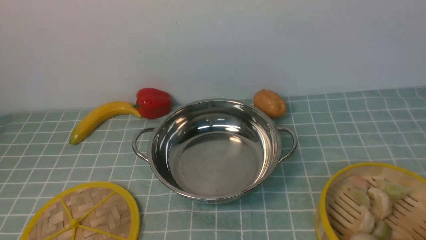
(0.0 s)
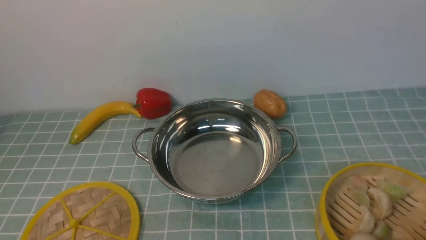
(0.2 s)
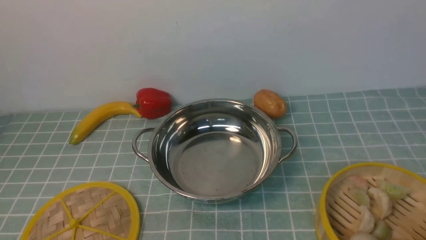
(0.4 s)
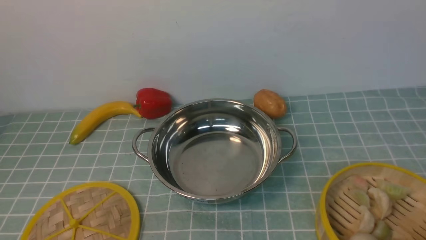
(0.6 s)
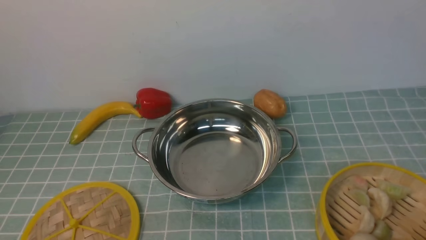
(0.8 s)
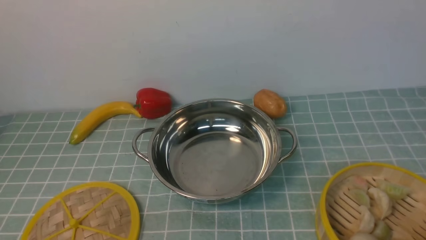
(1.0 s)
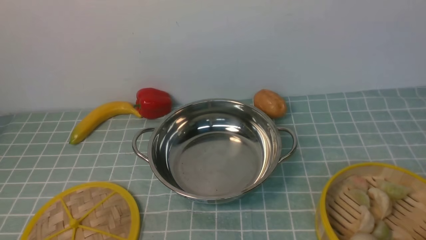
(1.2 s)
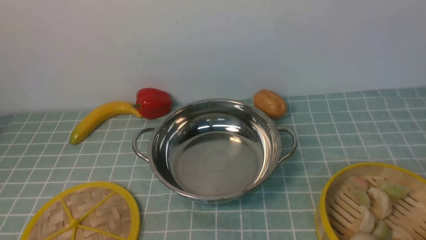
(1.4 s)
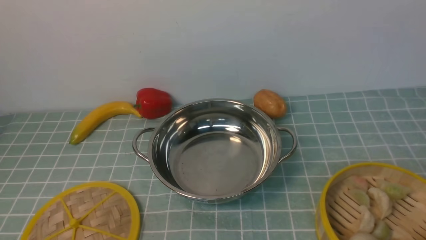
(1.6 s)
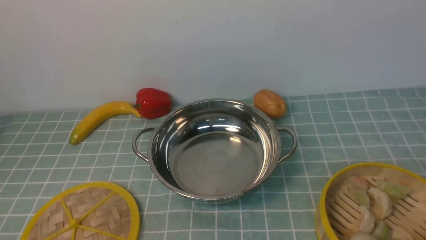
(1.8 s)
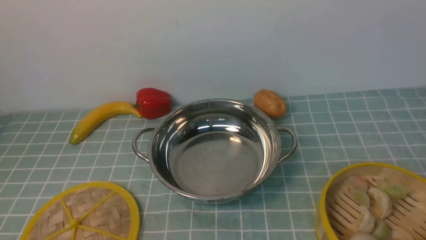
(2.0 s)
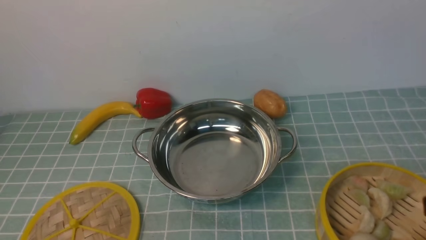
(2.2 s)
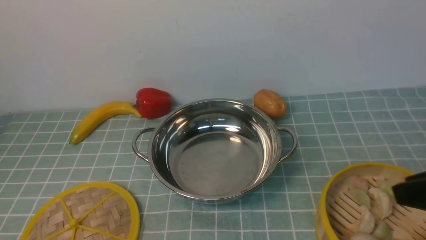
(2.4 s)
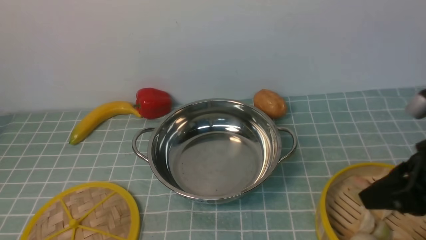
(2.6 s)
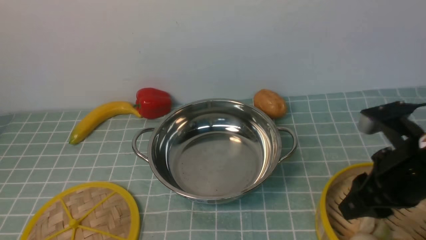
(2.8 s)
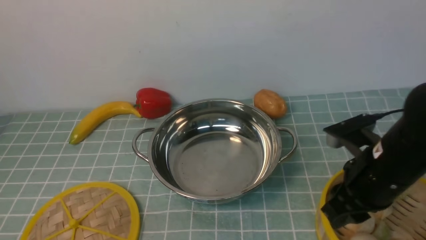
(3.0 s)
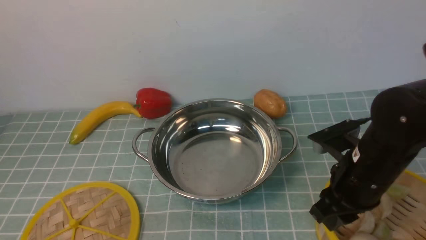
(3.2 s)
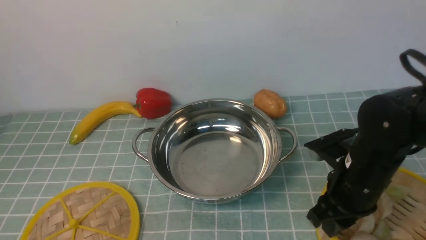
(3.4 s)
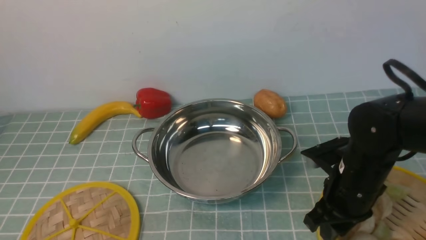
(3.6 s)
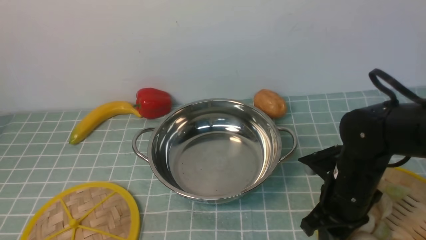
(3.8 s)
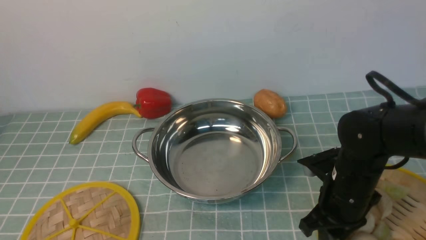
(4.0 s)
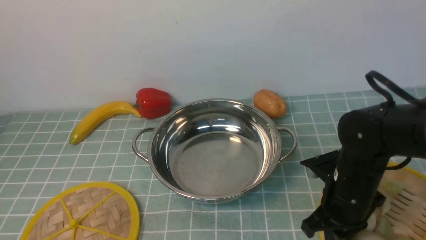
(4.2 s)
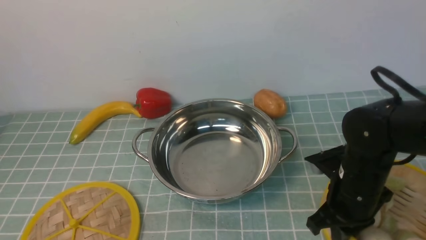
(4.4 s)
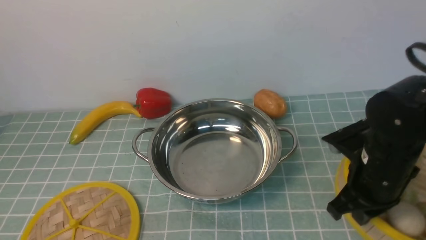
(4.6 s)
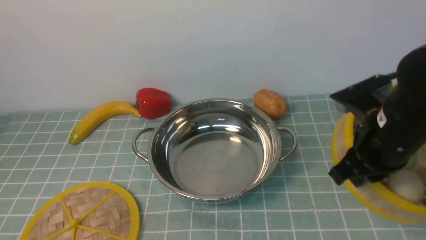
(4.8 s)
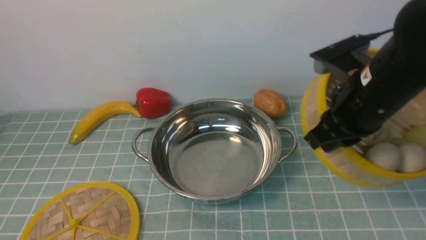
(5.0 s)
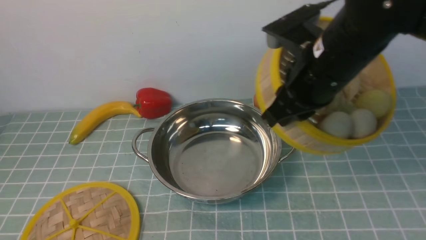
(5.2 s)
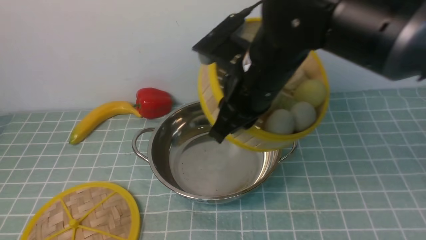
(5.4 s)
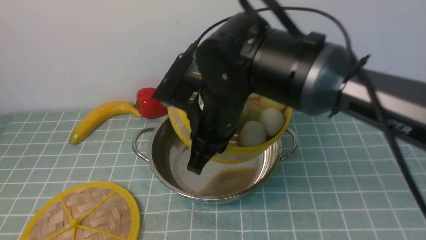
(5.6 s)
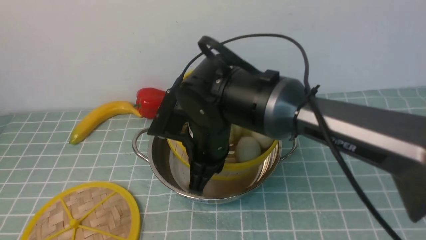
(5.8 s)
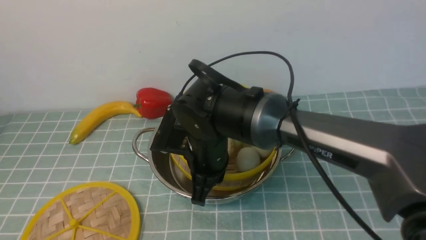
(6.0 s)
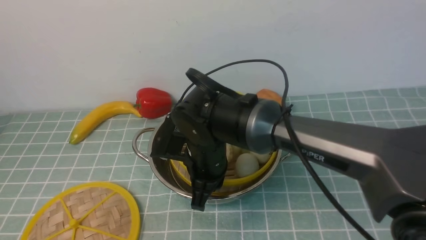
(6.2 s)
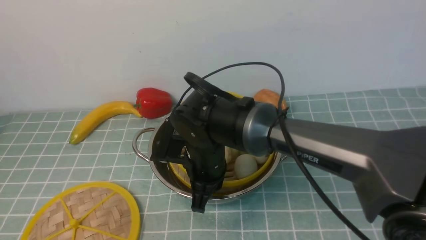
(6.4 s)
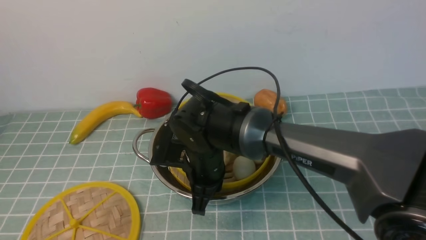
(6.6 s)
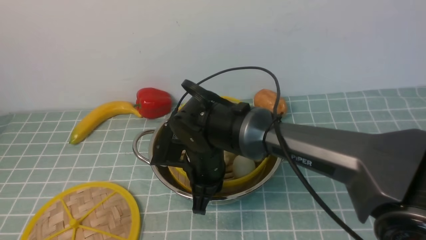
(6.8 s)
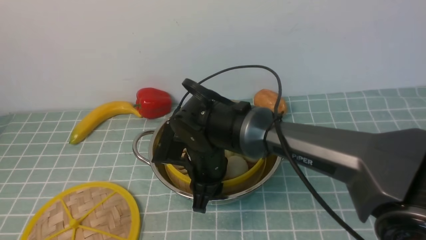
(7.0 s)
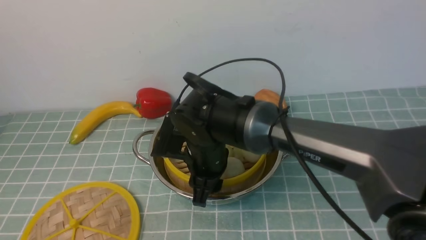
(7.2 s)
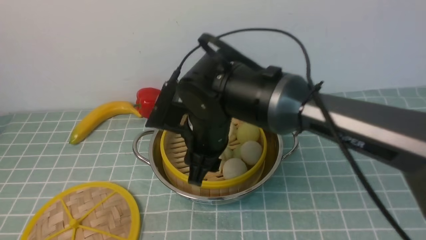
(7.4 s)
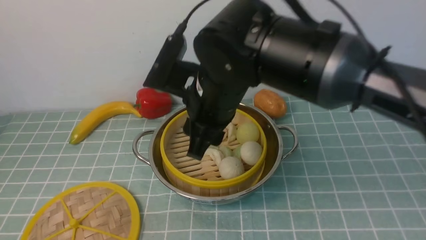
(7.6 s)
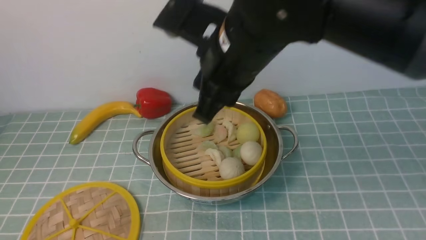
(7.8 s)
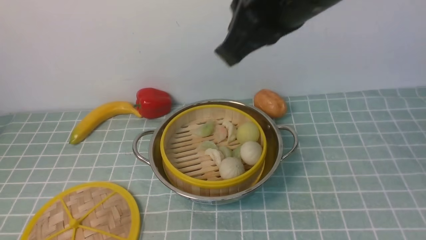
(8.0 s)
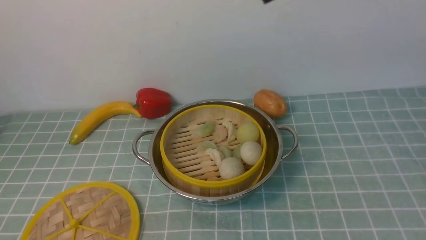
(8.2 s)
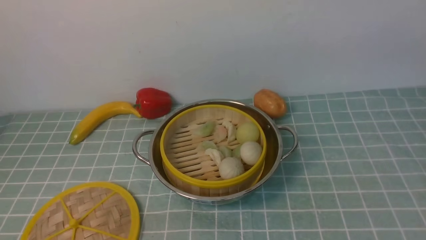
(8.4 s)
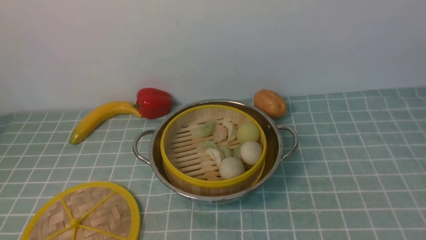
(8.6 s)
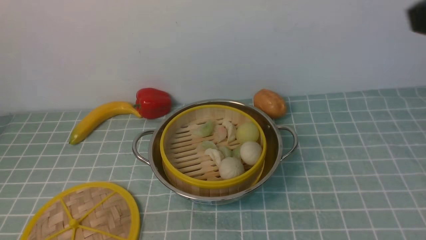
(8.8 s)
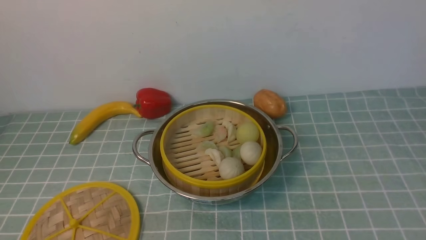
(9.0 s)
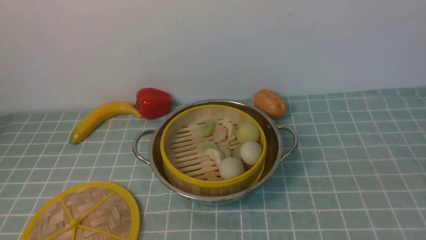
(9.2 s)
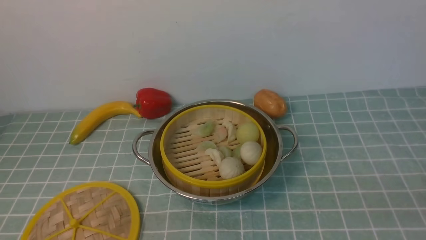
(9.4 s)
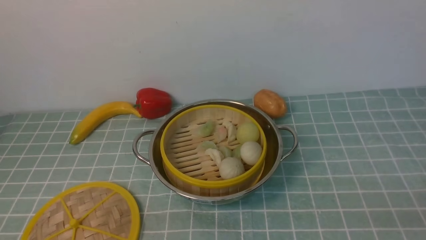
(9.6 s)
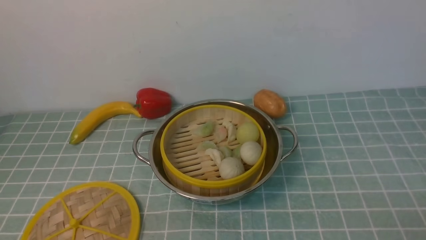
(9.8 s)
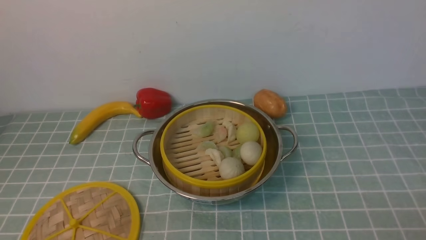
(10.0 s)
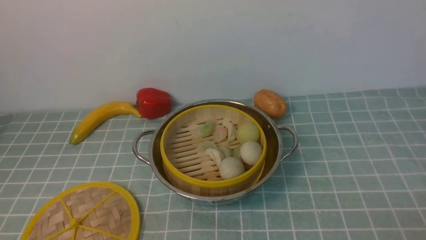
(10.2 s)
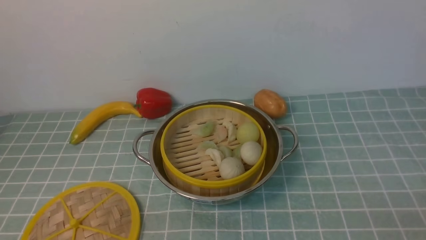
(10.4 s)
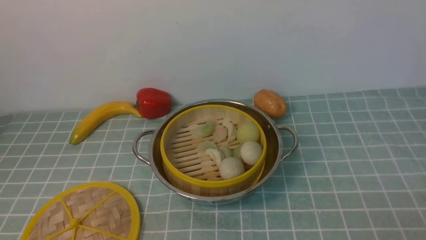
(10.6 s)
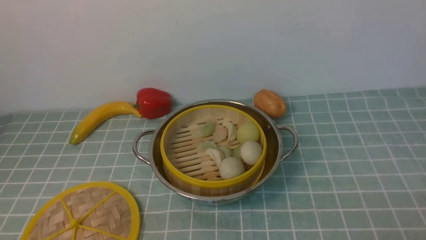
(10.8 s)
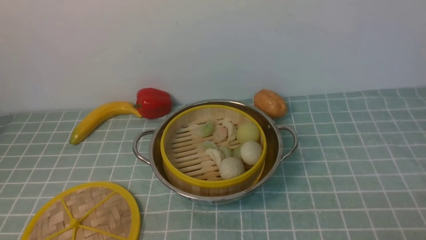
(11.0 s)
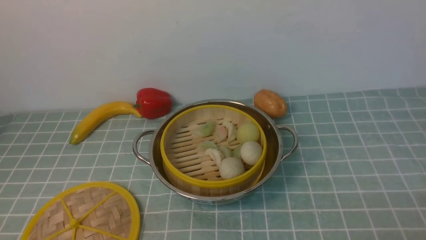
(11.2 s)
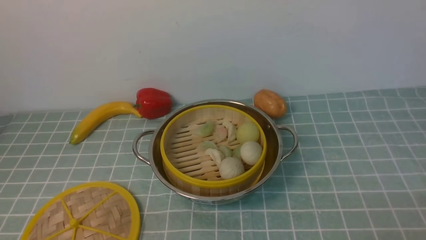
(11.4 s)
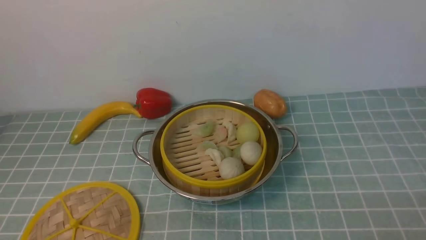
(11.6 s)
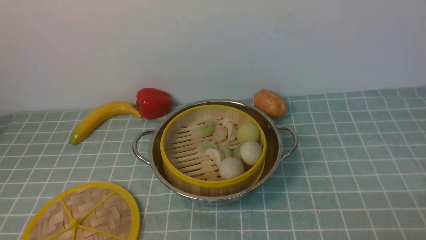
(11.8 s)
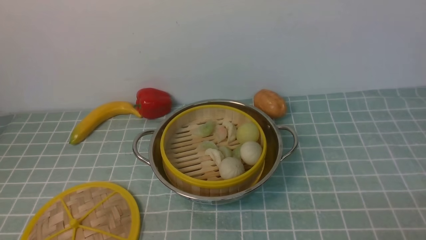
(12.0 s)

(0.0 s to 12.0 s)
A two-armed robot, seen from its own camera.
Task of the whole recording: place the steamer in the pot on the blue tablecloth, and put the lid on the steamer.
Step, 0.0 s - 4.8 s: use the right arm to lift the steamer closest to it.
Step, 5.0 s - 7.6 s: use the right arm to put the steamer into the iron steamer pot in the middle.
1.6 s - 3.0 s: The right gripper shifts roughly 20 cm forward and to the left.
3.0 s - 4.4 s: The right gripper shifts about 10 cm downward, and closes its fingers.
4.4 s - 6.0 s: The right gripper is displaced to the left by roughly 20 cm.
6.0 s - 7.6 s: The right gripper travels upward by approximately 5 cm, and opens.
7.6 s - 9.0 s: The right gripper travels to the right, backward and upward by approximately 35 cm, and closes its fingers.

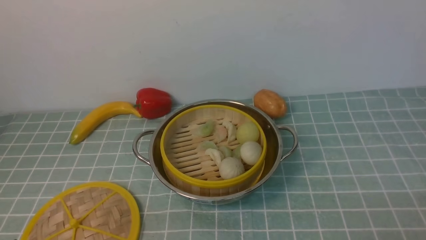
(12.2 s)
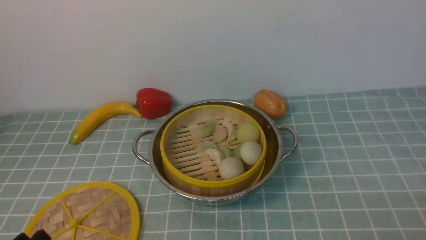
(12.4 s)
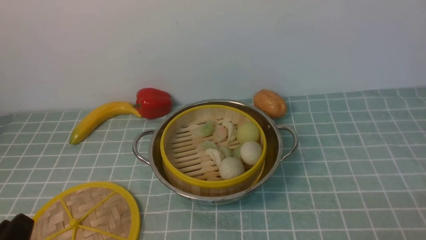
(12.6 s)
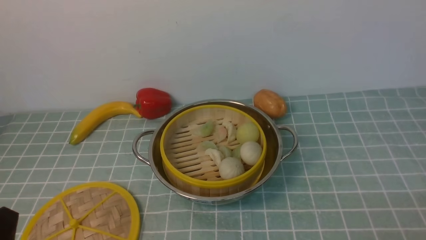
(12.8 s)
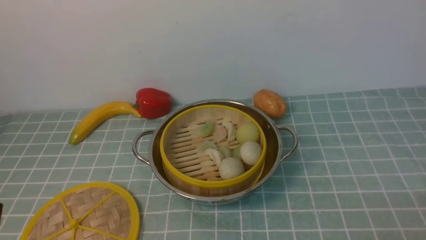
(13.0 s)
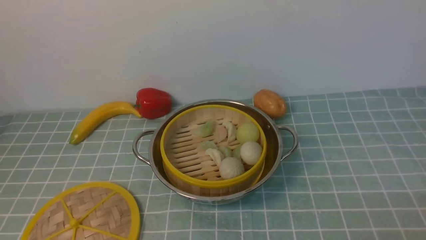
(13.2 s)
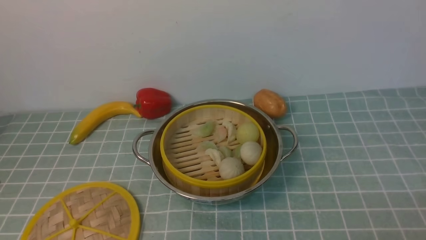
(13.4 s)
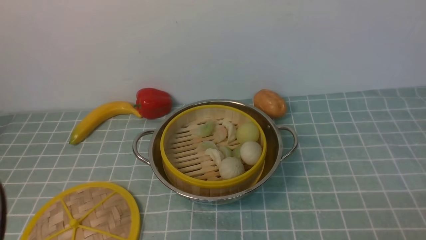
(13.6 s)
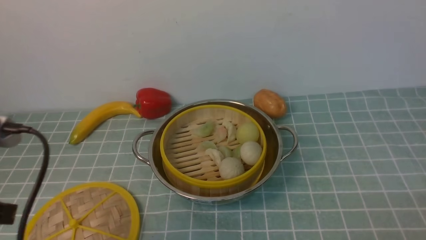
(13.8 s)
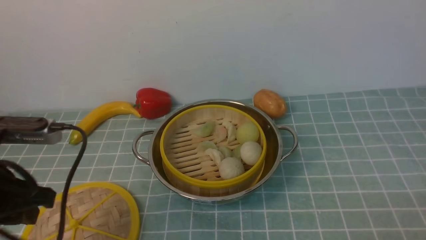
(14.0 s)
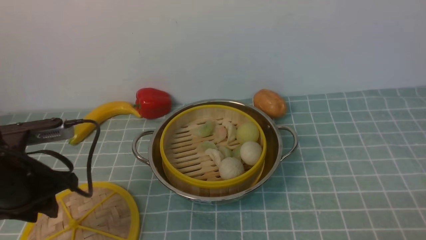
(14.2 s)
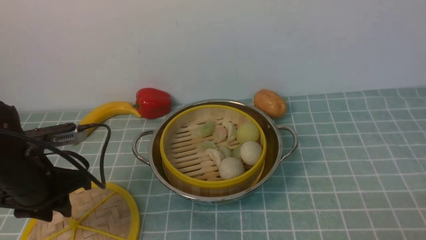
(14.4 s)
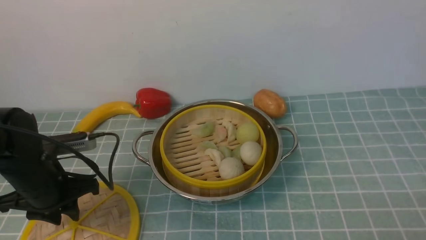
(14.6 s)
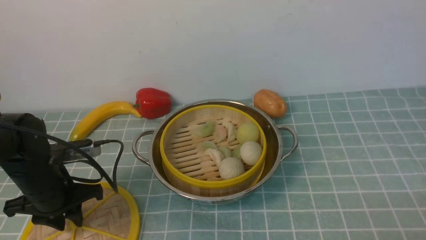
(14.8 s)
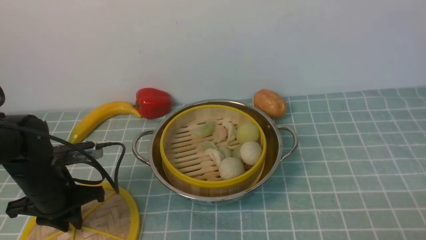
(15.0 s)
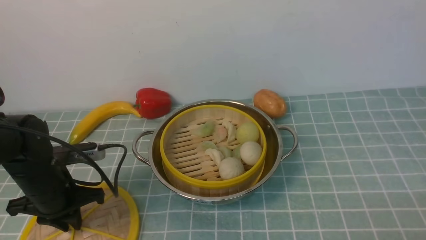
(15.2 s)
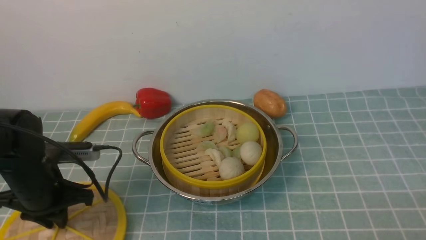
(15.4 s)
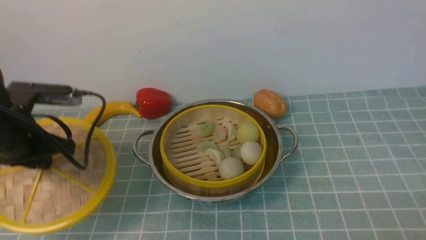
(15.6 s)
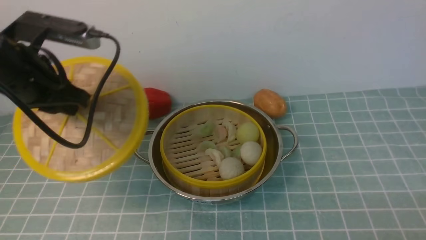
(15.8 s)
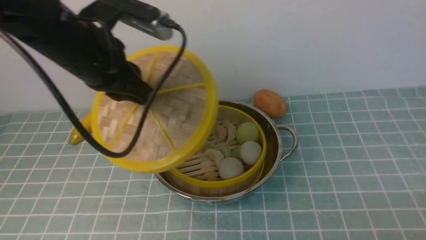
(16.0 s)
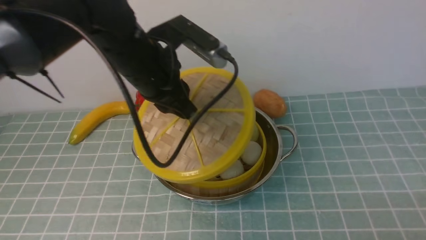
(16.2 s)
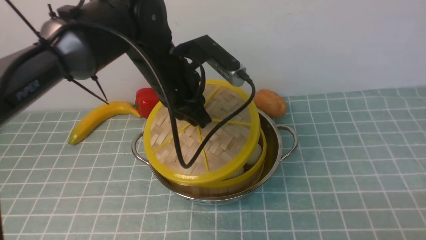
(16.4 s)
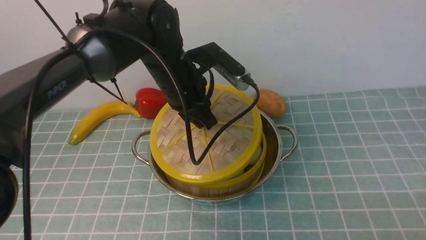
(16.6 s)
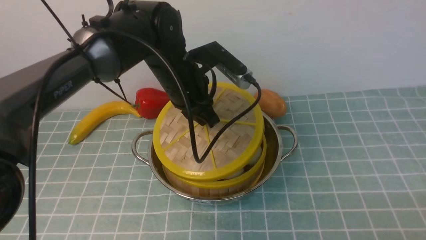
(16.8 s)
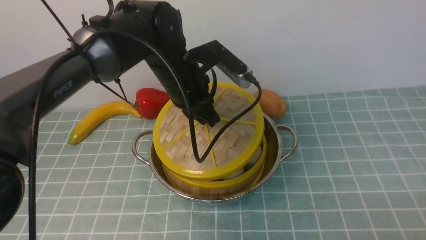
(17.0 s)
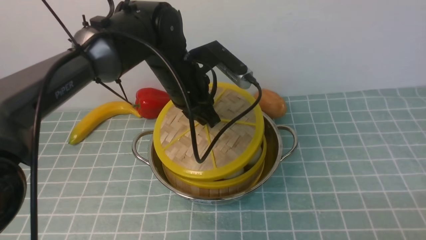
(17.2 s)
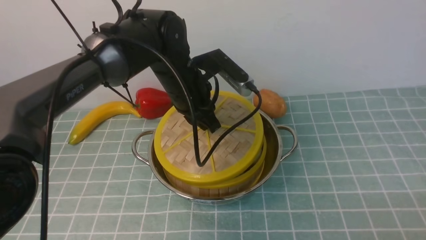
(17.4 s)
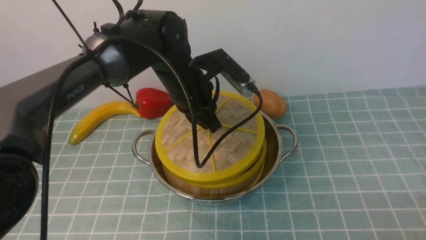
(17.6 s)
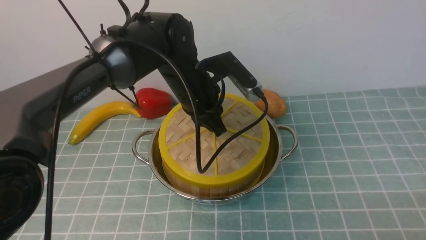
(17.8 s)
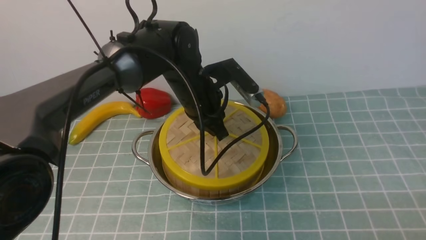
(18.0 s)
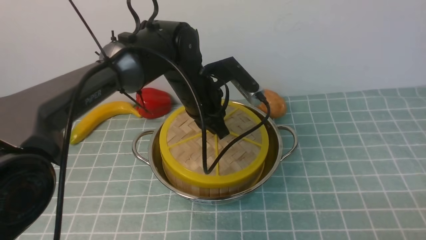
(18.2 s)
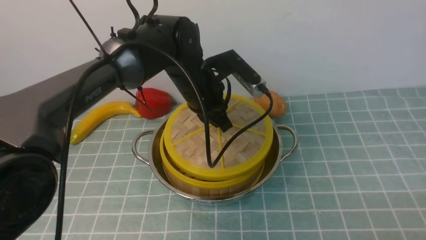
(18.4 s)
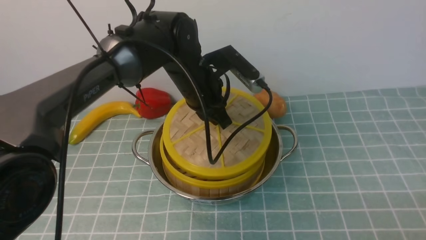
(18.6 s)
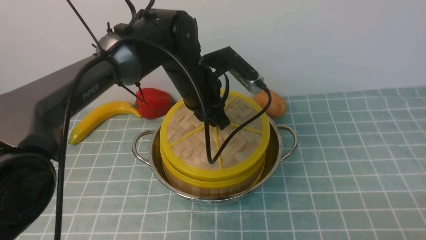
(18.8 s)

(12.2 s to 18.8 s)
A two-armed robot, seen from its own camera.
Task of the whole recording: place the steamer in the pot on the blue tablecloth, and put the lid on the steamer.
Step, 12.2 s - 15.6 s: use the left arm to lift the lid of the steamer.
12.2 s - 13.8 s: The left gripper shifts roughly 15 cm upward.
13.8 s - 15.4 s: The left gripper is displaced forward and downward by roughly 25 cm, and closes its fingers.
15.4 s - 17.2 s: The left gripper moves to the right, forward and upward, about 25 cm.
17.2 s - 18.8 s: The grippers stay close to where they were, moving slightly.
